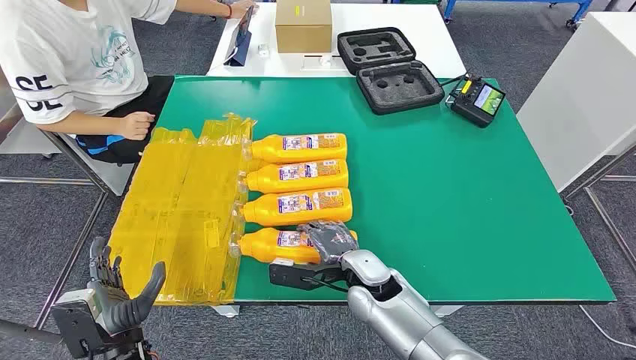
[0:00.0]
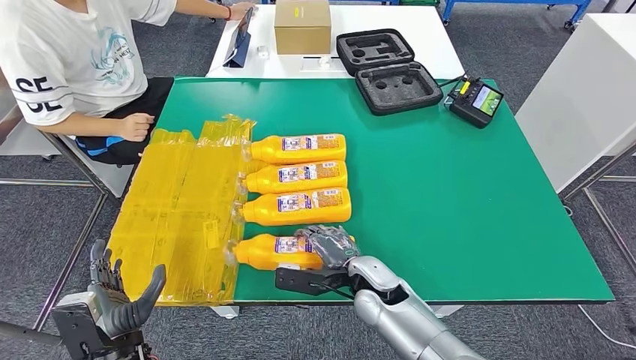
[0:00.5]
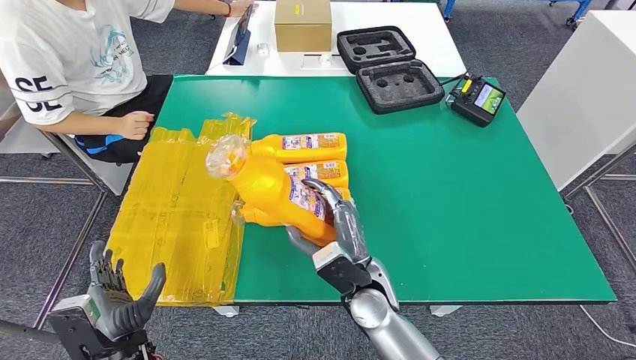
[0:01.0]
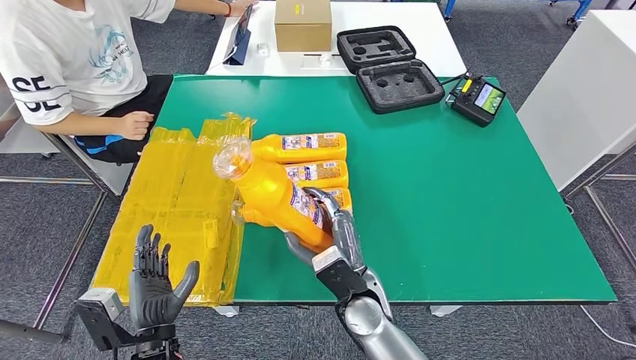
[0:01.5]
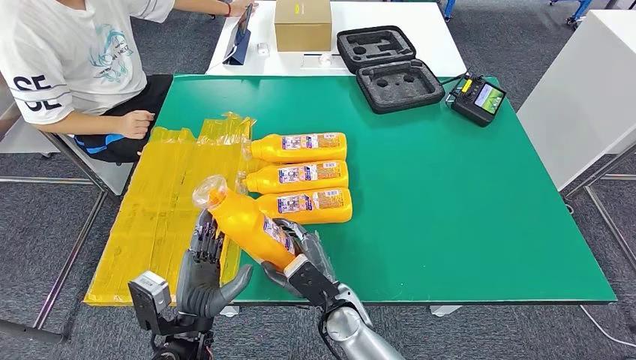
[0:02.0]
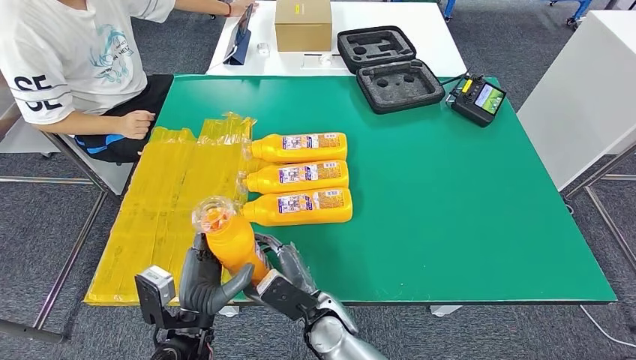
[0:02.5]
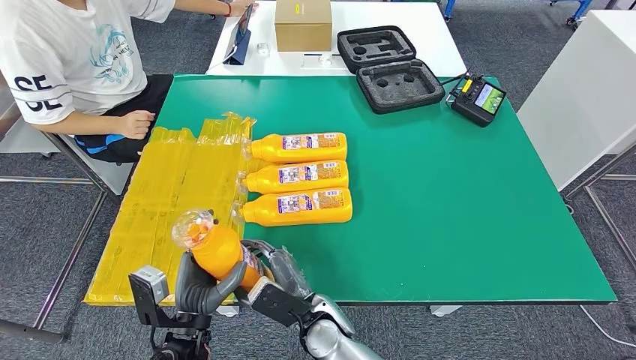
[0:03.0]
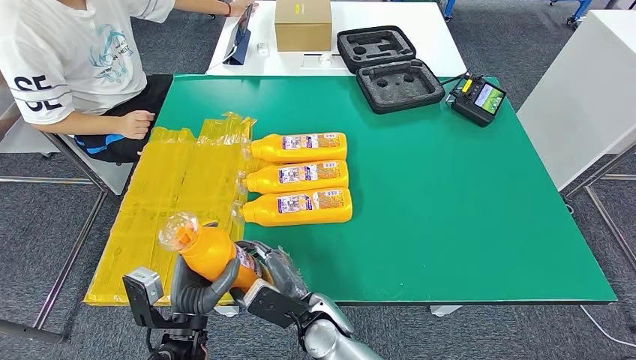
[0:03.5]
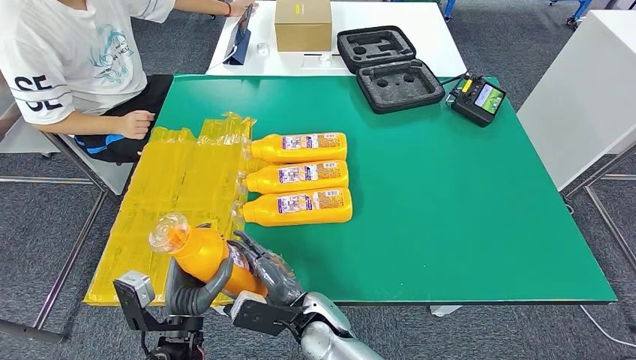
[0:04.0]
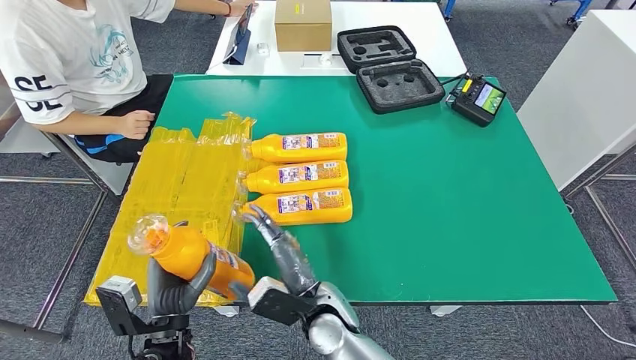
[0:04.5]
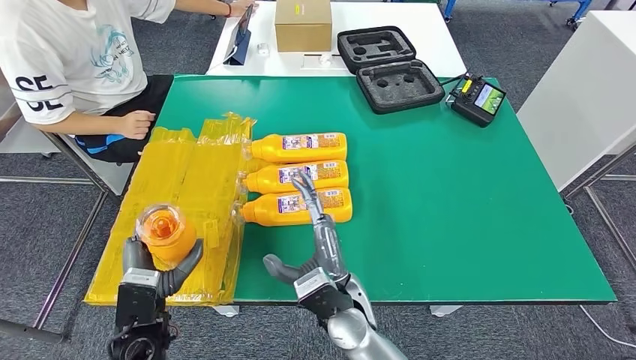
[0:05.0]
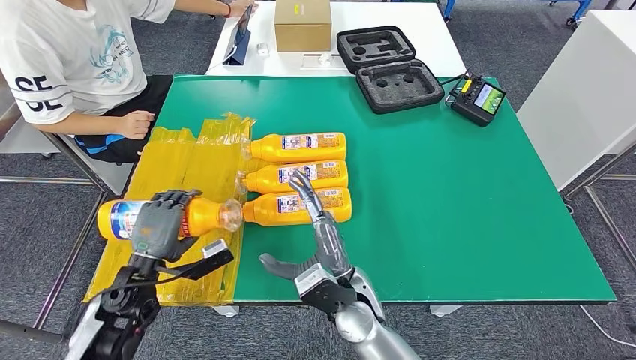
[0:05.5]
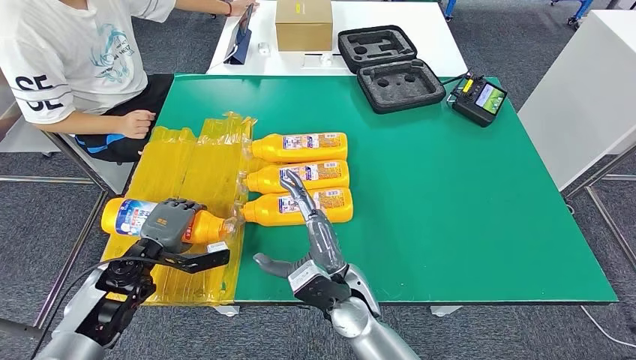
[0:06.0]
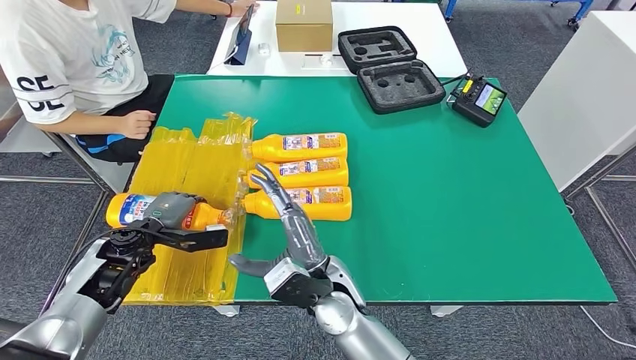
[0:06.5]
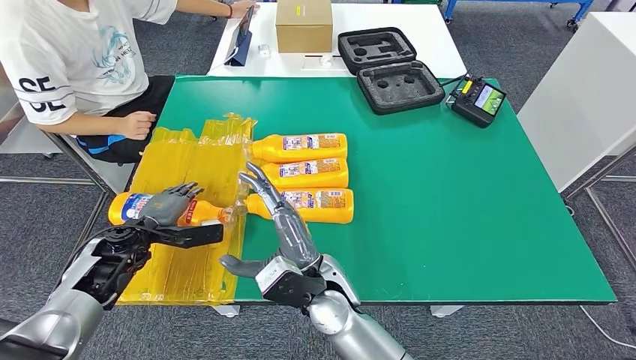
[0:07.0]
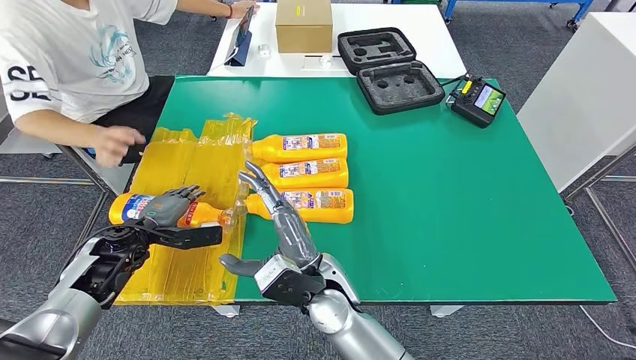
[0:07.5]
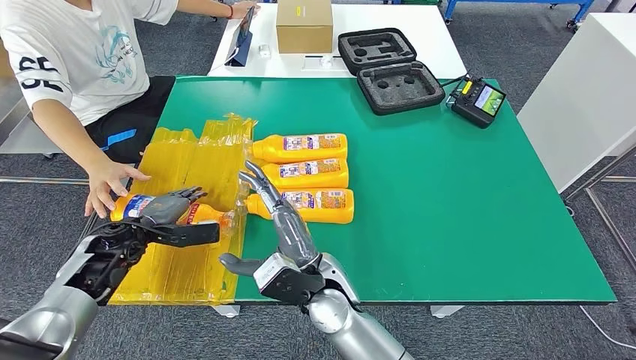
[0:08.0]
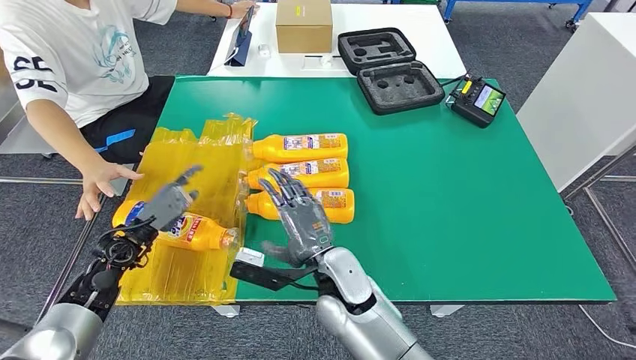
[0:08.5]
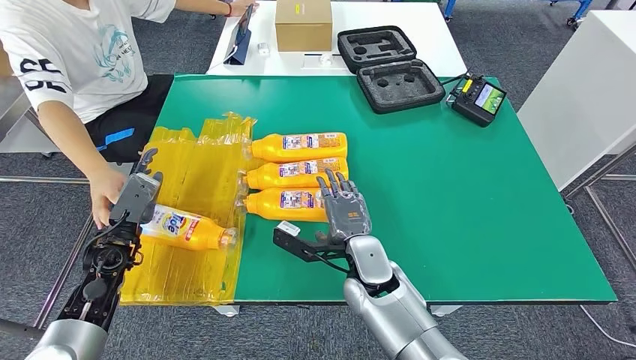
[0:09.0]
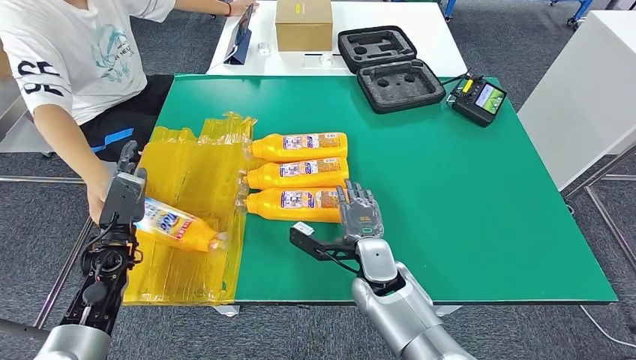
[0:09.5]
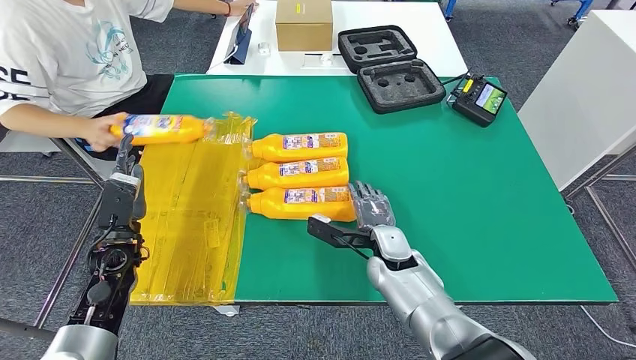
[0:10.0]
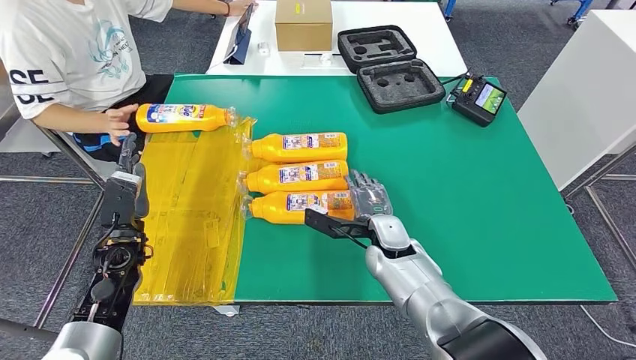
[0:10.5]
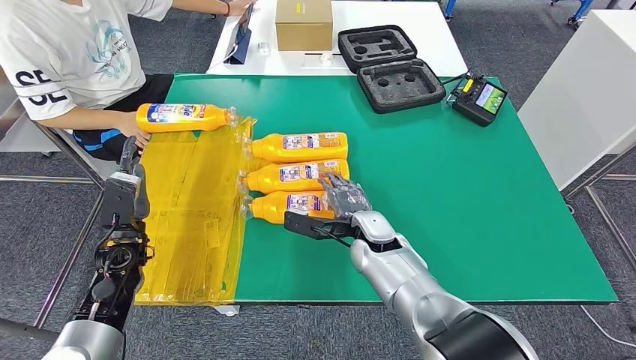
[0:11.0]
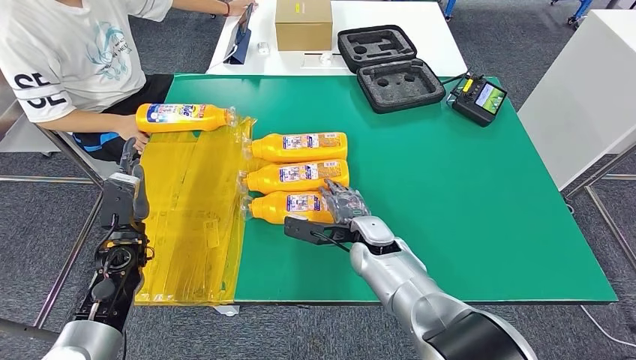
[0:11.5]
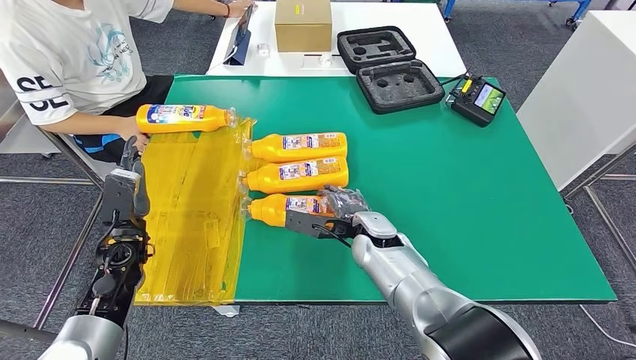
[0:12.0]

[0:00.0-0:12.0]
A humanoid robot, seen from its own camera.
Step, 0:00.0 to 0:02.5: Take the bottle from the table.
Step, 0:05.0 to 0:08.5: Flip the bottle to face forward.
0:02.0 to 0:04.0: There are only small adjustments of the hands.
0:04.0 to 0:06.0: The left hand travels forward and to the left by about 20 cm, while the right hand travels to the right and upward by some 10 cm.

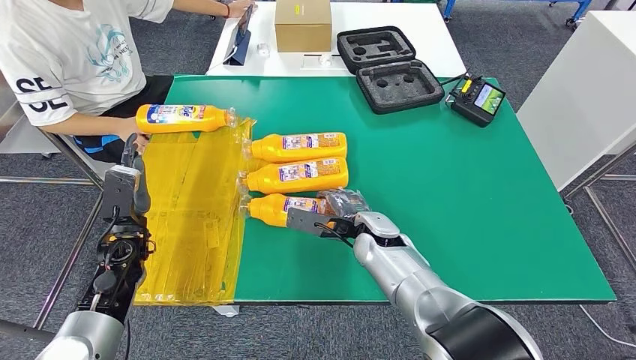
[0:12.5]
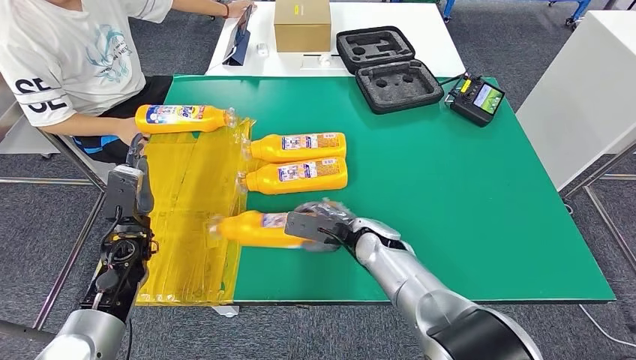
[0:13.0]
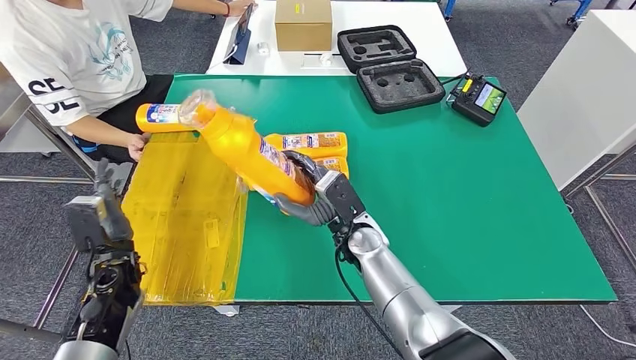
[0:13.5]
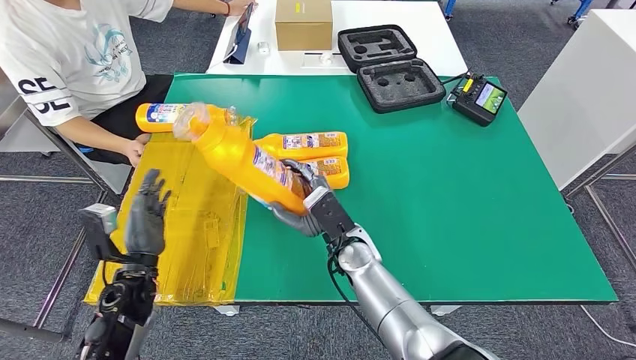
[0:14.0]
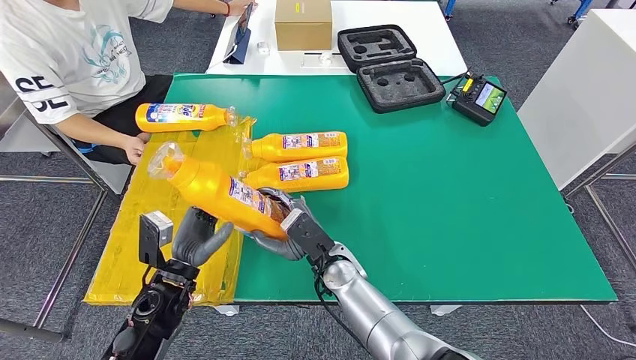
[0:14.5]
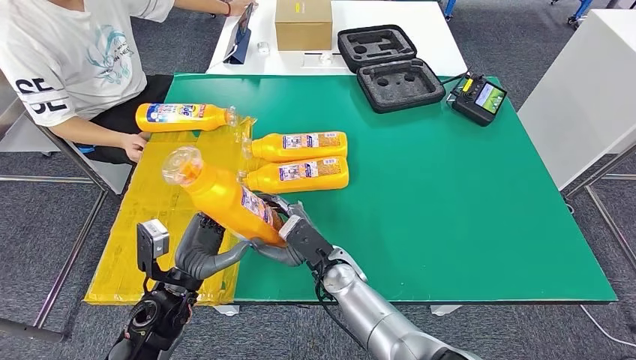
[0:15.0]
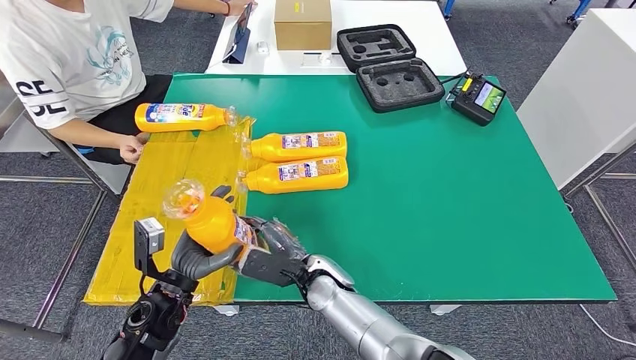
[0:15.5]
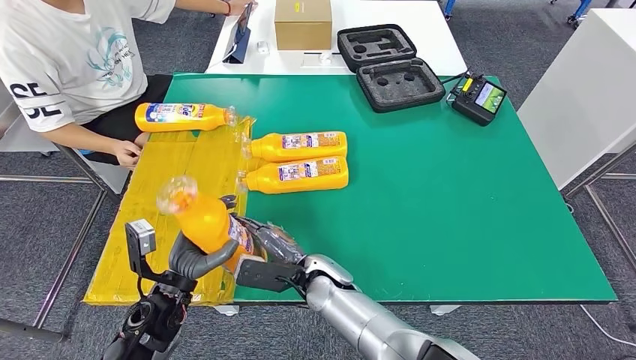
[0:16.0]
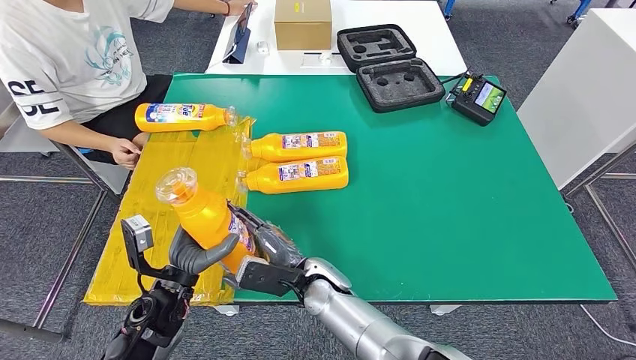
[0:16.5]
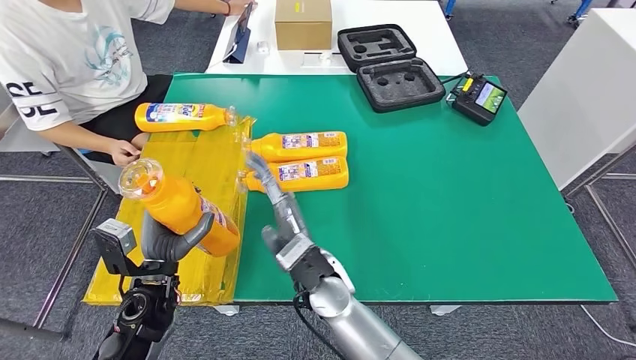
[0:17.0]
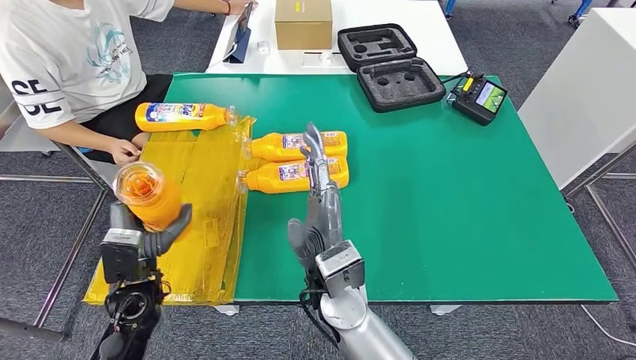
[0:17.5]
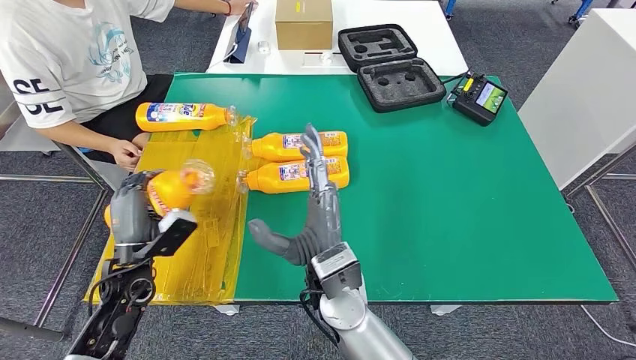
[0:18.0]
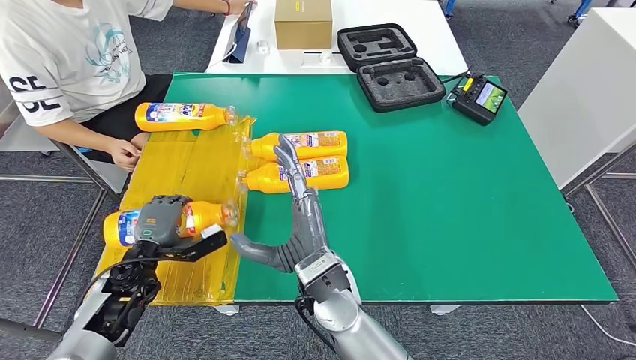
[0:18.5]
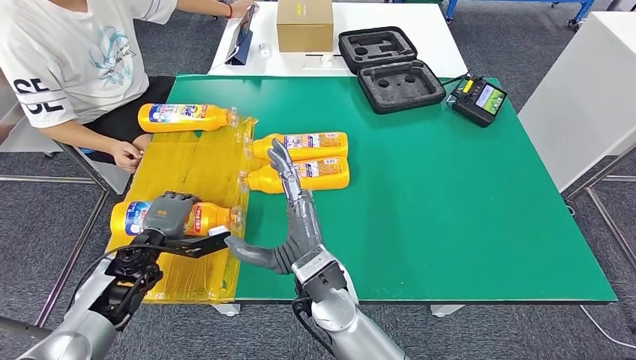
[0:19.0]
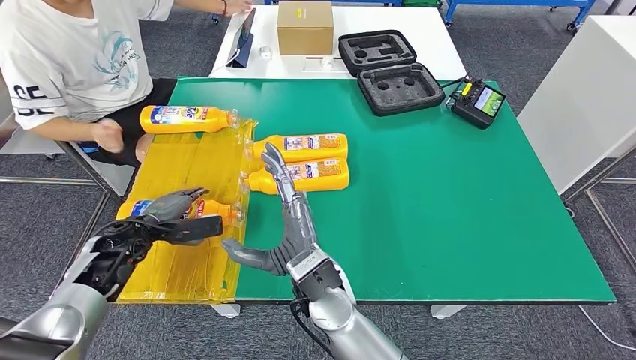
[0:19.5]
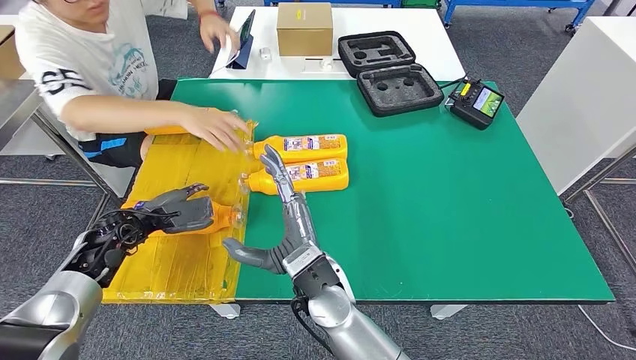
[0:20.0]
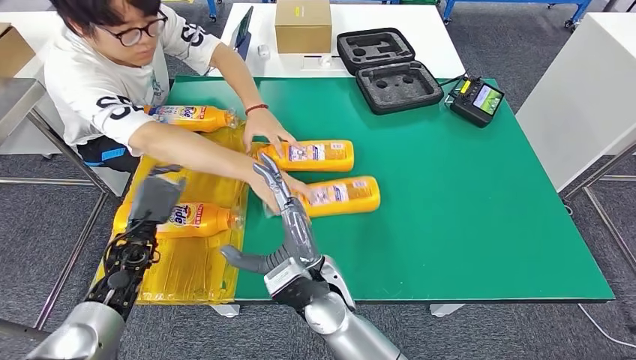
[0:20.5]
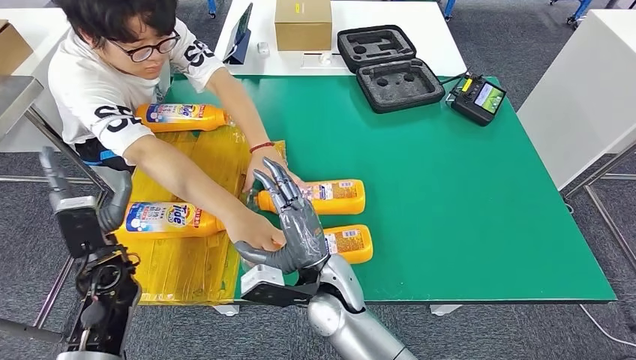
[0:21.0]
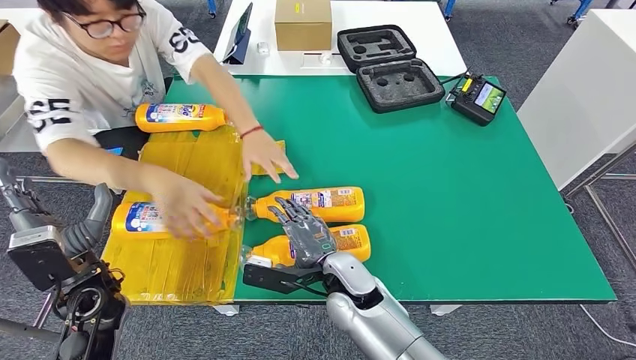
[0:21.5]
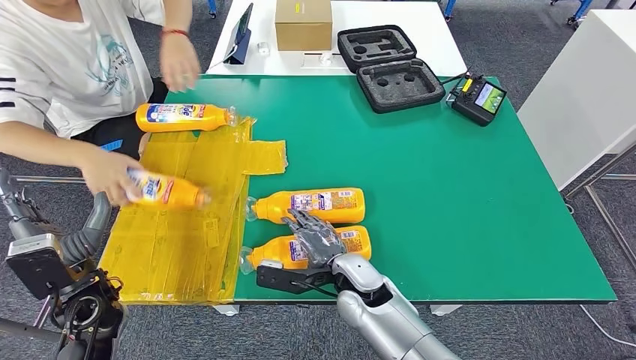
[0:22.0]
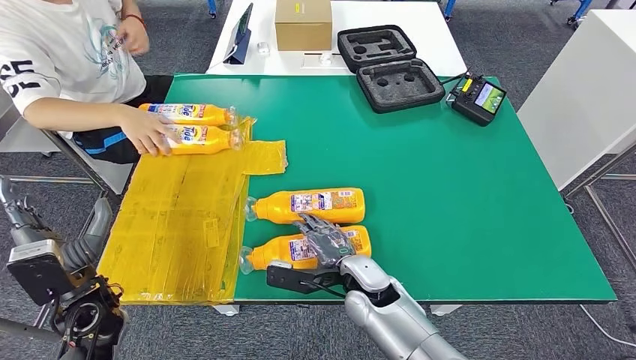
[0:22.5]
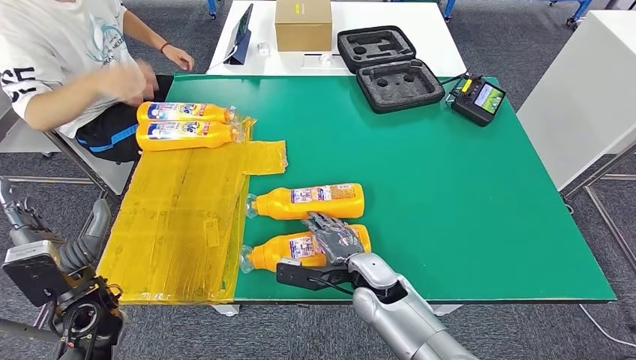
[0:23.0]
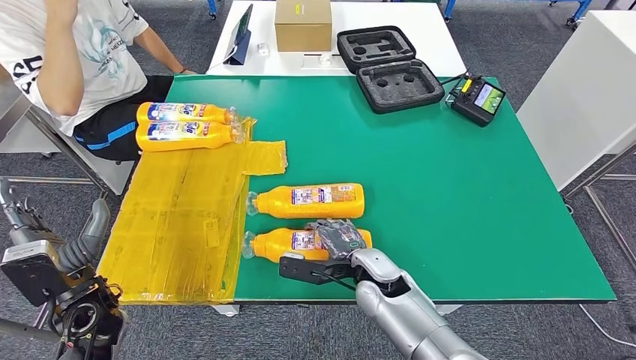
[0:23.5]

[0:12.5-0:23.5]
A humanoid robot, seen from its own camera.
Step, 0:12.5 to 0:15.0: Pick up the bottle from the table.
Step, 0:16.5 to 0:20.0: Flip the bottle to face forward.
0:16.0 to 0:18.0: The left hand moves to the left, approximately 10 cm; the right hand travels upward by some 10 cm.
